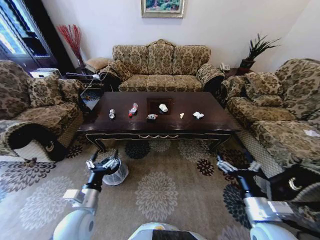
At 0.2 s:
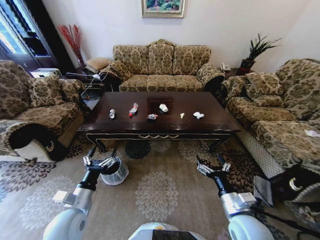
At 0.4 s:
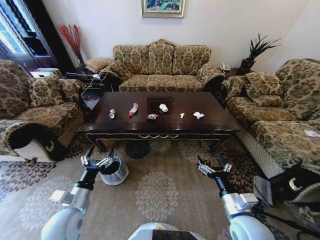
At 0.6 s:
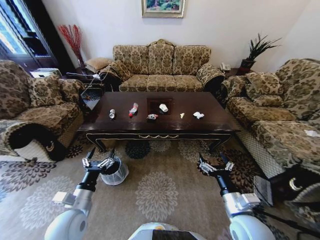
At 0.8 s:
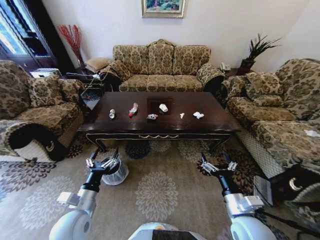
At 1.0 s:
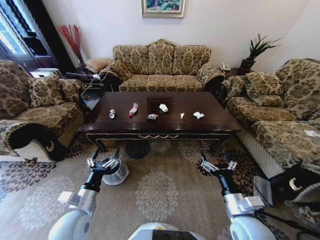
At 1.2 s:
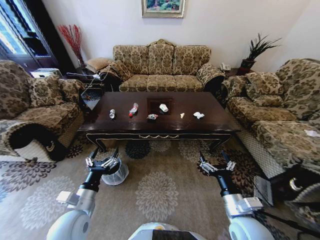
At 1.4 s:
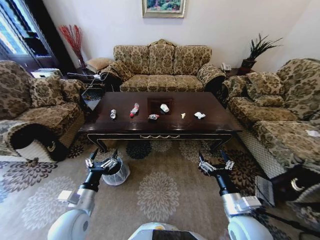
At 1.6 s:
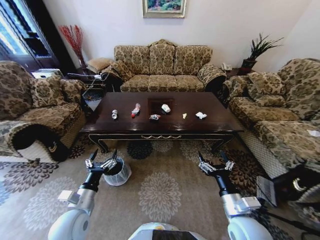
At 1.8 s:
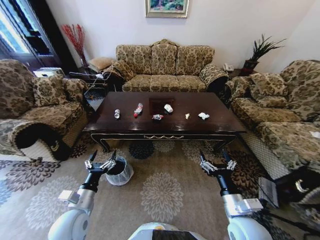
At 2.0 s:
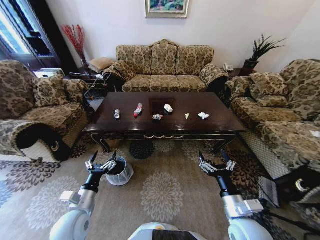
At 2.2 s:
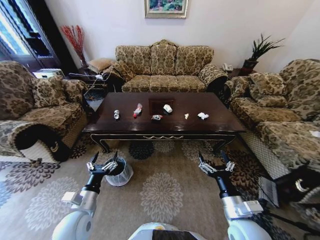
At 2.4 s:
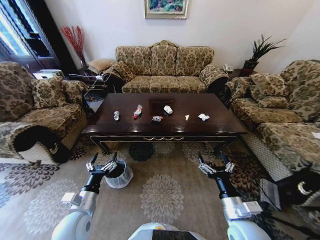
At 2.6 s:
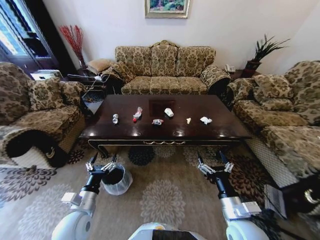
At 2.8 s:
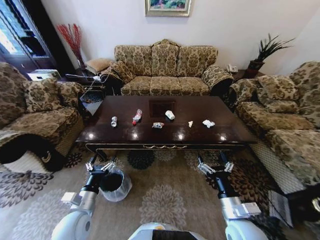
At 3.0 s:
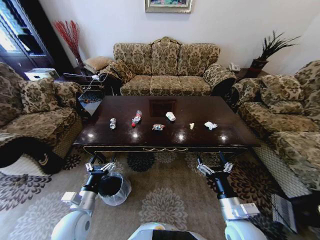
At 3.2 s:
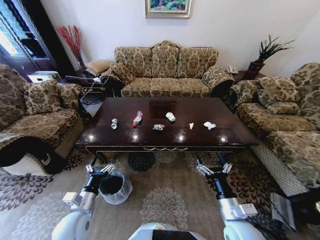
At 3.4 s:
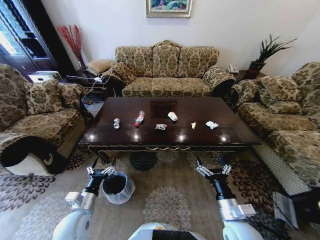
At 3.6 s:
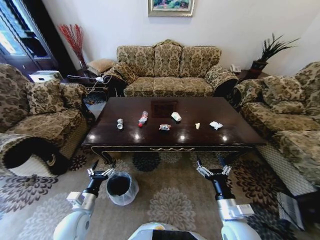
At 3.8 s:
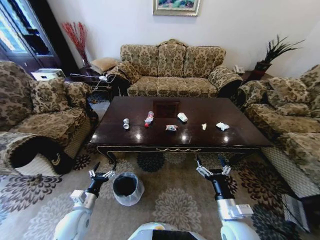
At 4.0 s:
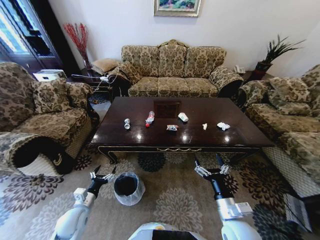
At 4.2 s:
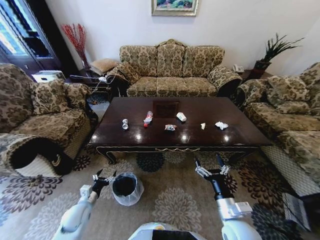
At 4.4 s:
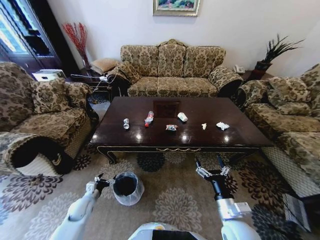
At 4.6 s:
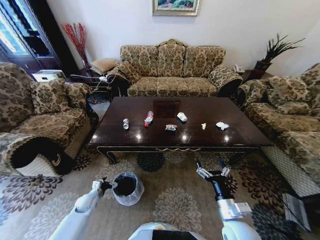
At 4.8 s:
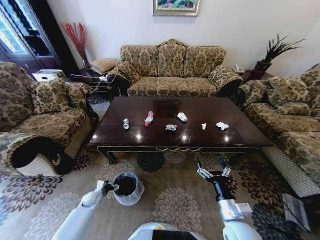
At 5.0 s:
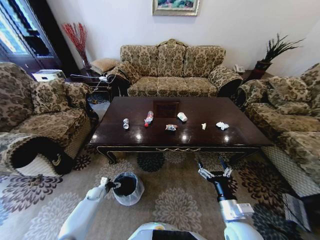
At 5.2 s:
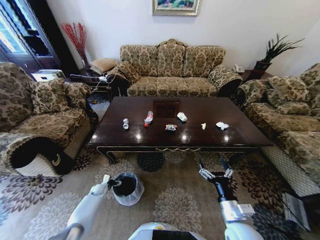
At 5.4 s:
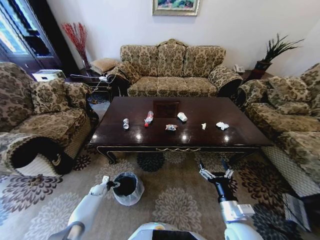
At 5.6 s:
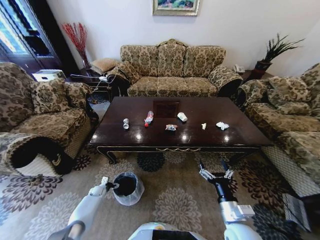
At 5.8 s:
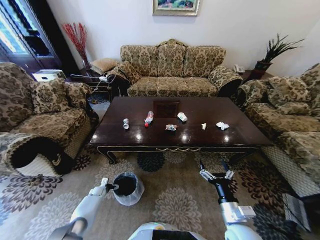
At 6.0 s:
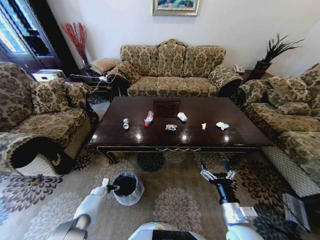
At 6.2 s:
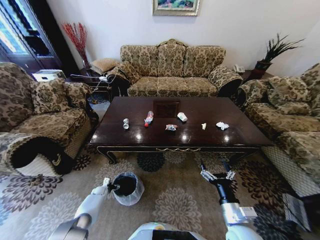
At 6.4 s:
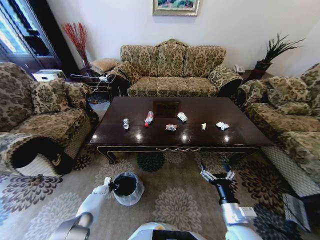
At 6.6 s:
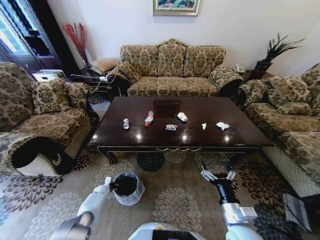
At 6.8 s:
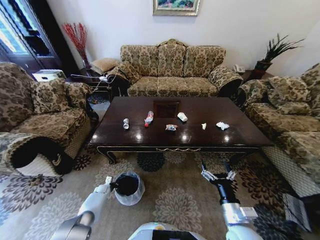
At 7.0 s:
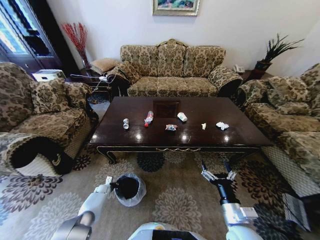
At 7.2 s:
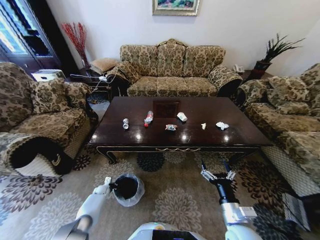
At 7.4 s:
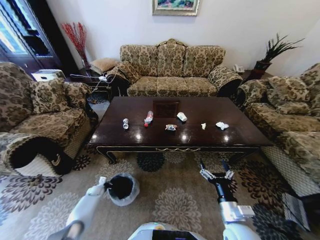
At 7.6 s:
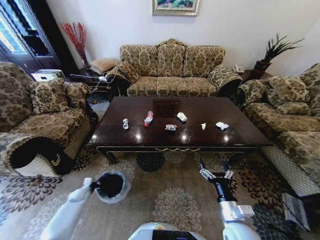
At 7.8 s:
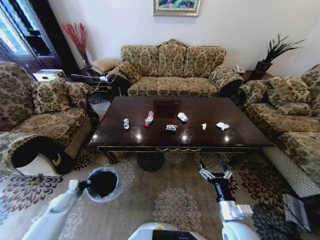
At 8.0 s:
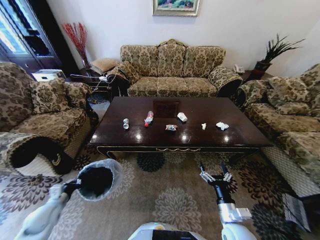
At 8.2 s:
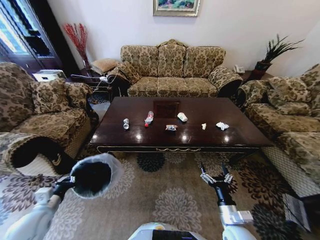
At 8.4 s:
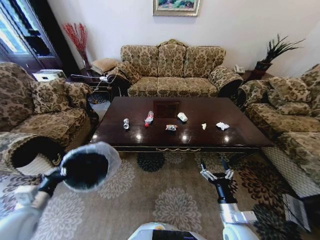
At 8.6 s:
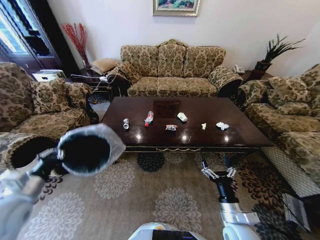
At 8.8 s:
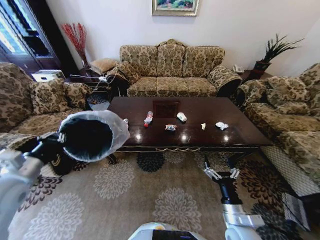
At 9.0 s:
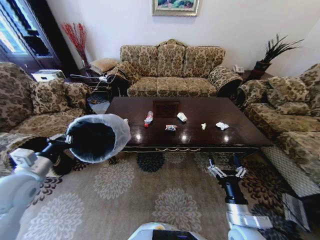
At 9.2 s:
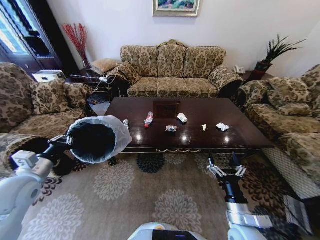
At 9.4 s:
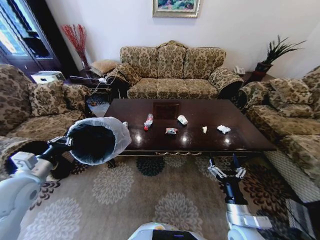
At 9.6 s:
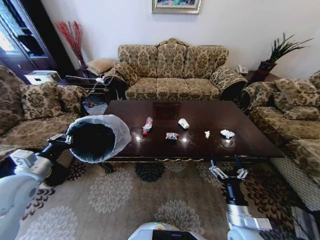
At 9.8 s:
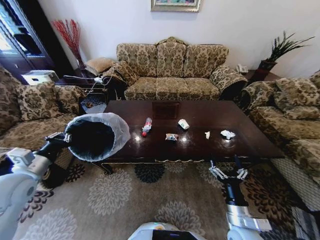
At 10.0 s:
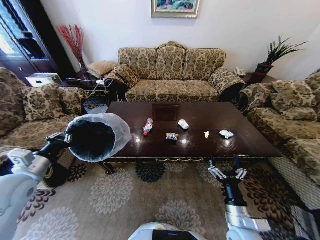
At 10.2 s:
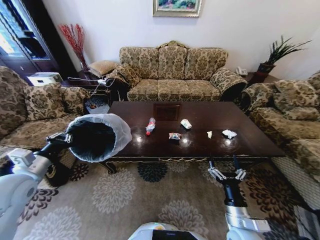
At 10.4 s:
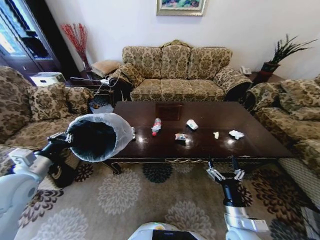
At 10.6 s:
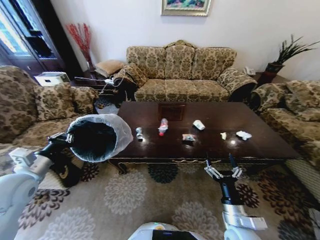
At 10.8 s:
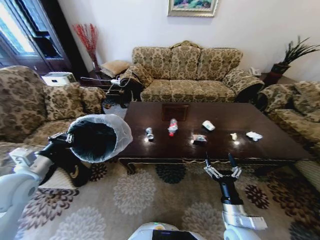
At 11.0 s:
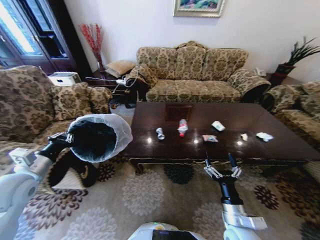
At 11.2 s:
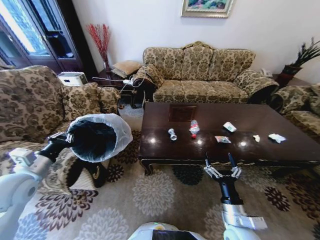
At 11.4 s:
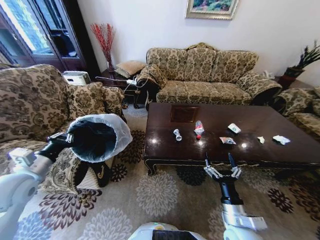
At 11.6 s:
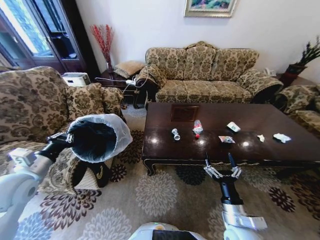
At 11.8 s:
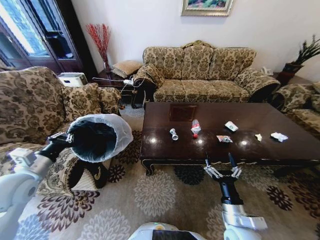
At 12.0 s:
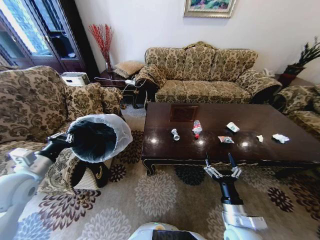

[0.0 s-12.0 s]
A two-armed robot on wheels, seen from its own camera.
Task of the whole recording: Move to the front of the table and place the trash on the table into the trash bin.
3.0 to 4.4 s: The left gripper goes roughly 15 cm downward, to the left and forward.
4.4 to 6.0 s: The left gripper is displaced downward and forward by approximately 20 cm.
6.0 to 7.6 s: The left gripper shifts about 10 cm upward and to the left, and closes up.
7.6 to 9.0 s: The left gripper travels upward by about 40 cm.

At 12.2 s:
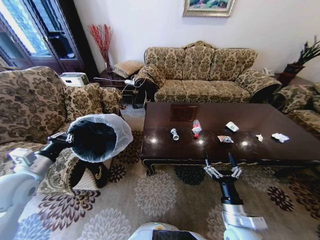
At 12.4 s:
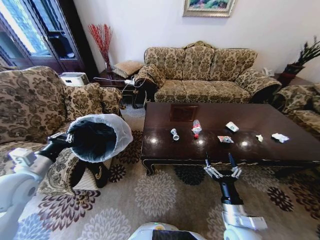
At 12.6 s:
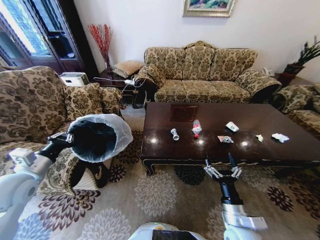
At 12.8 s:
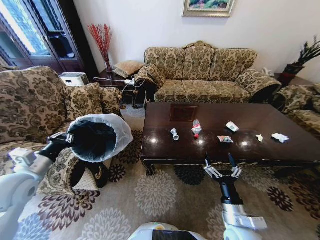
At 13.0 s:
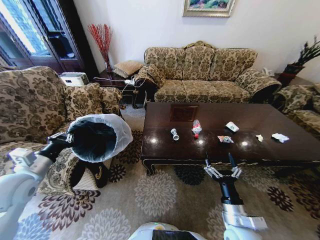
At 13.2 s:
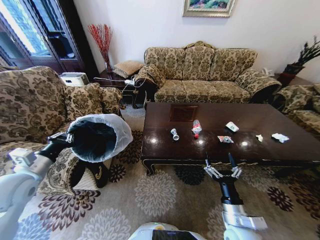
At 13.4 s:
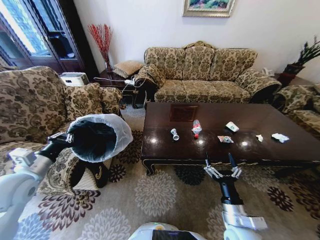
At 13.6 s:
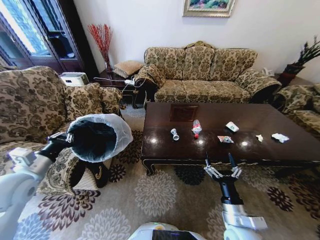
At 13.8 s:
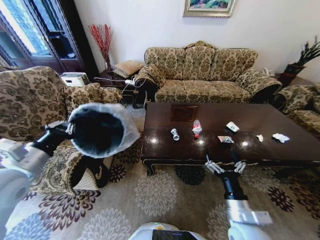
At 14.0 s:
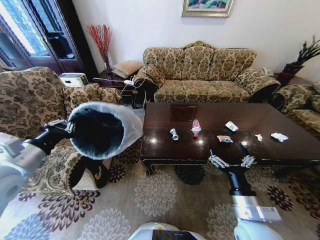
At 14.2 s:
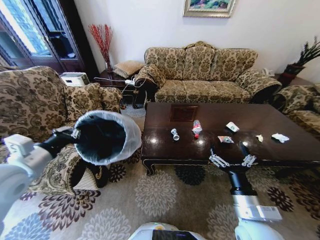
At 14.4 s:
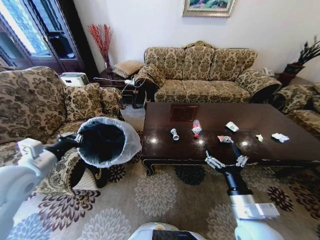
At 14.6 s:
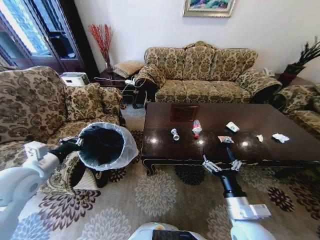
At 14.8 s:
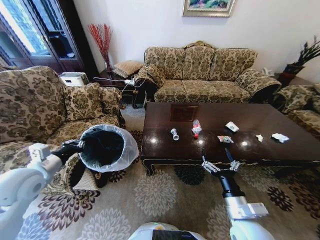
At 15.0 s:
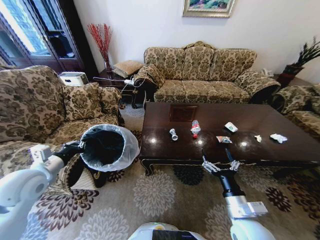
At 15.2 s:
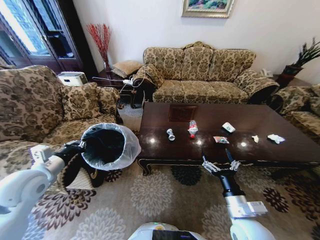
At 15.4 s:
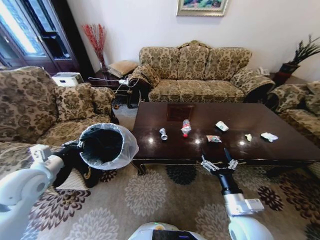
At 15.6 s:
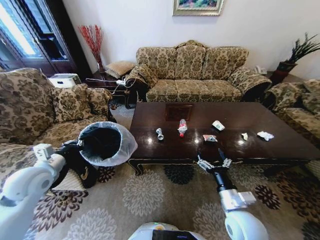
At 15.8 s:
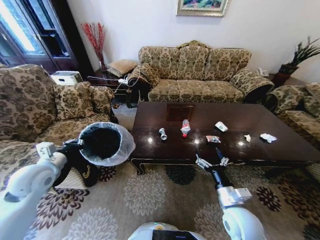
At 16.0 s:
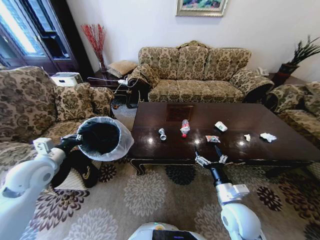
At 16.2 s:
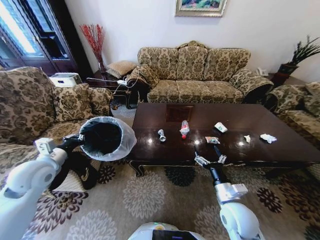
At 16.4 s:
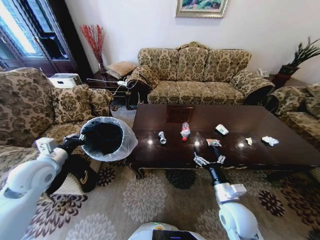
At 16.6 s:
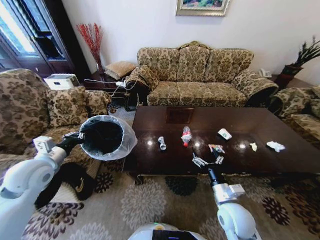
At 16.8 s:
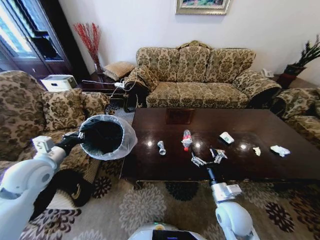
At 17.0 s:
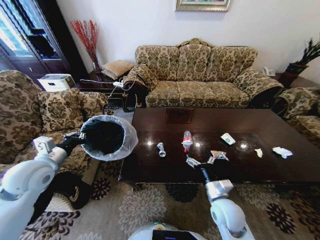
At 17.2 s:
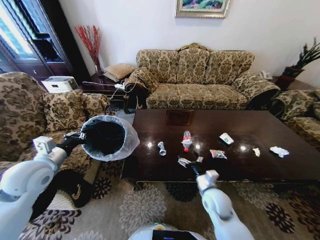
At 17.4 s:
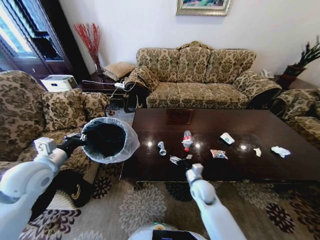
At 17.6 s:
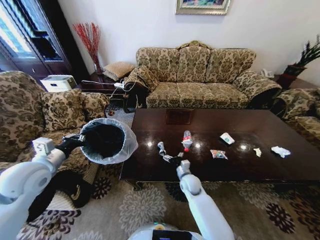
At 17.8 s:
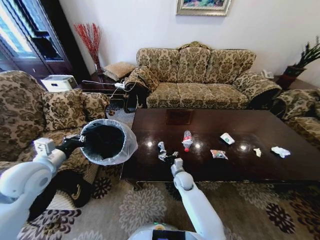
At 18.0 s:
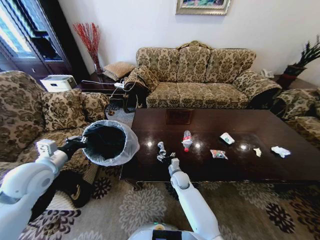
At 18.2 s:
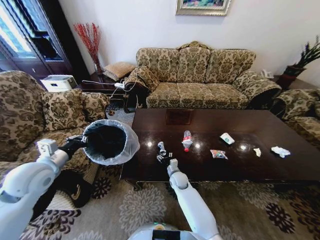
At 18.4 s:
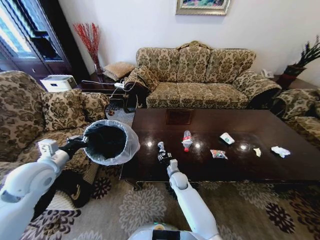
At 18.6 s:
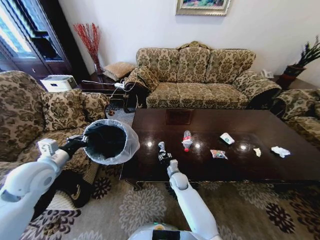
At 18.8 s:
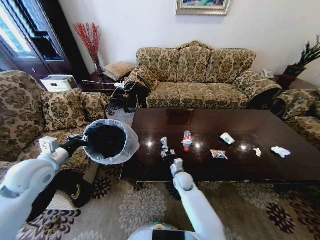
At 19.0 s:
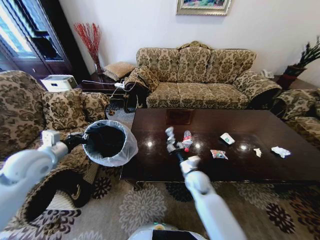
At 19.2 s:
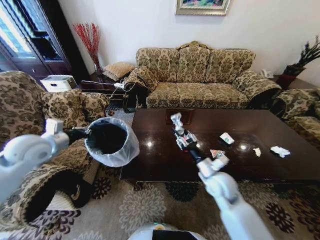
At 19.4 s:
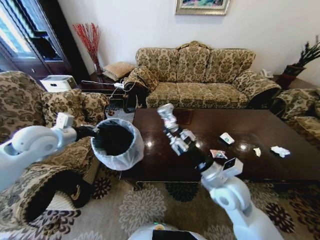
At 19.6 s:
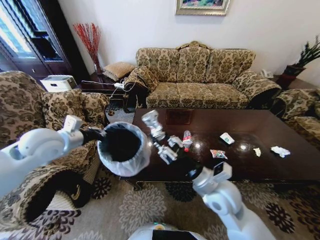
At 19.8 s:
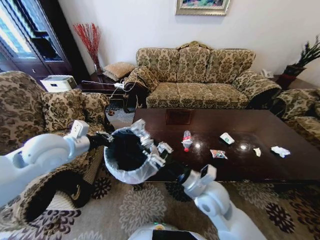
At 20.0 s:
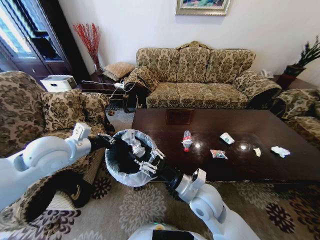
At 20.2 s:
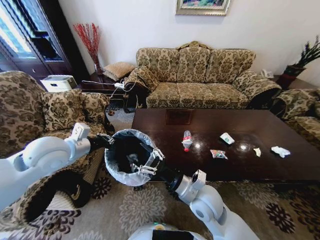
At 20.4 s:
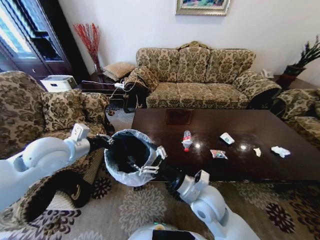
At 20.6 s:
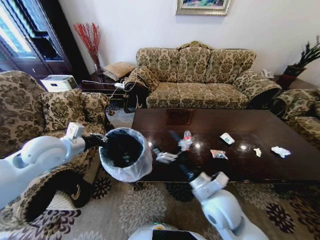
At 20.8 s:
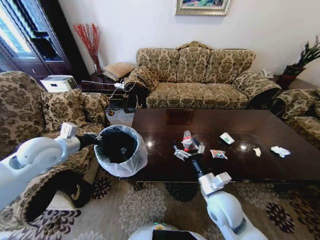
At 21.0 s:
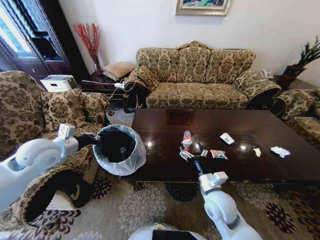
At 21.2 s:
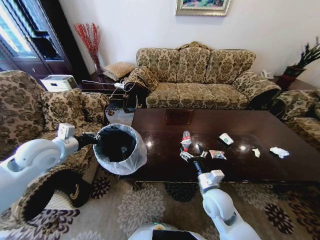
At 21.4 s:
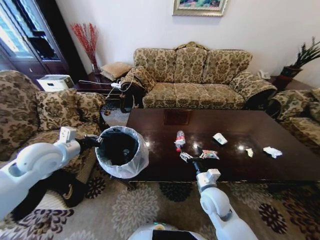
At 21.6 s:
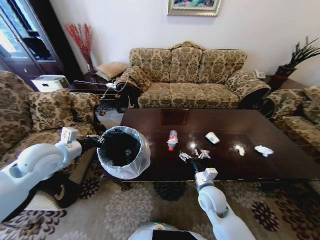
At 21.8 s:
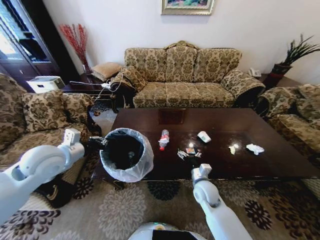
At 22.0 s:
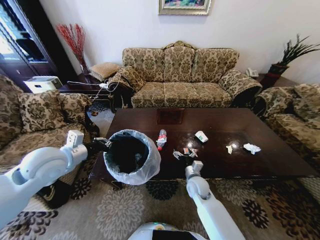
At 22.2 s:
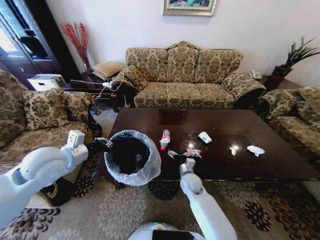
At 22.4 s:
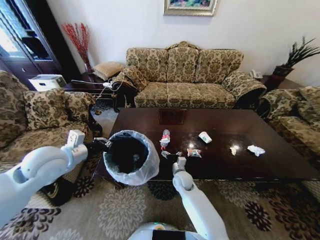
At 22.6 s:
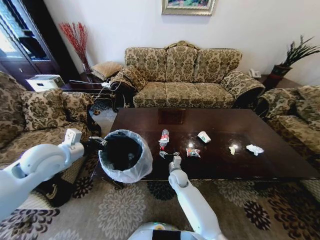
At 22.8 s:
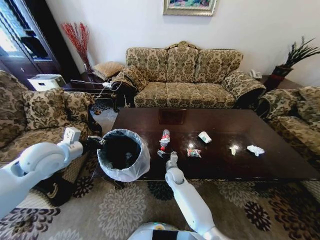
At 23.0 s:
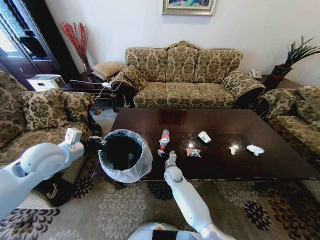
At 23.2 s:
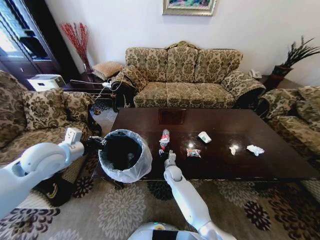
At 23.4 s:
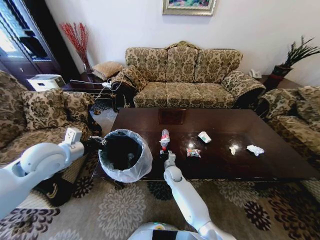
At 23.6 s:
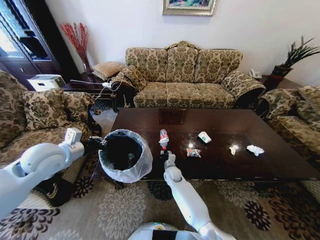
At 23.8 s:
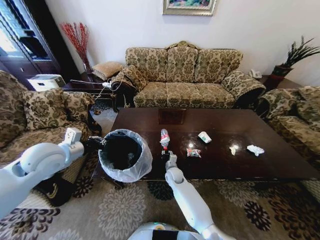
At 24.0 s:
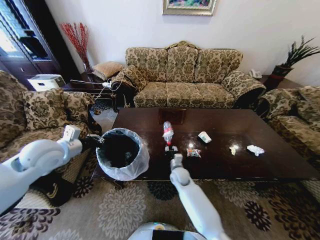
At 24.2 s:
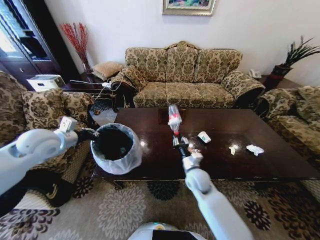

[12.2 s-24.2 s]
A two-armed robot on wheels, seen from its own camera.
Task of the whole recording: Move to the front of the table and place the trash on the table into the trash bin.
12.2 to 13.8 s: The left gripper travels upward by roughly 5 cm.
13.8 to 15.2 s: The left gripper heads downward, covering some 5 cm.
15.2 to 16.6 s: The right gripper ends up roughly 5 cm from where it was.
16.6 to 18.2 s: The right gripper travels forward, downward and to the left by about 30 cm.
18.2 to 19.8 s: The right gripper heads upward and backward, covering some 25 cm. Meanwhile the left gripper is displaced upward and to the right by about 10 cm.
19.8 to 21.2 s: The left gripper shifts approximately 5 cm to the left. Meanwhile the right gripper shifts about 10 cm downward and to the right, and opens its fingers.
21.2 to 22.6 s: The right gripper moves forward, downward and to the left, about 20 cm.
22.6 to 24.2 s: The left gripper ends up roughly 5 cm from where it was. The right gripper heads upward, to the right and backward, covering approximately 15 cm, and closes.
